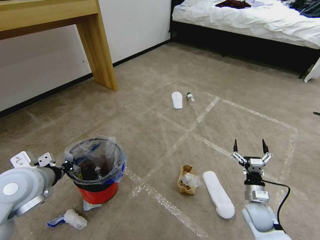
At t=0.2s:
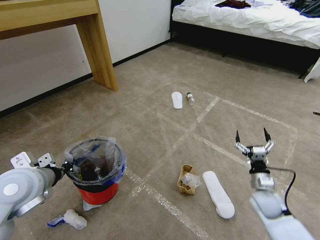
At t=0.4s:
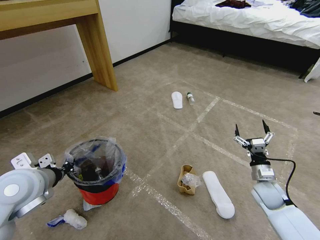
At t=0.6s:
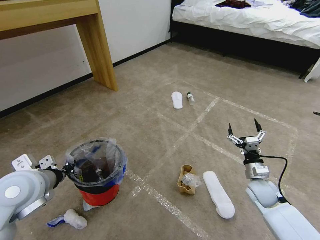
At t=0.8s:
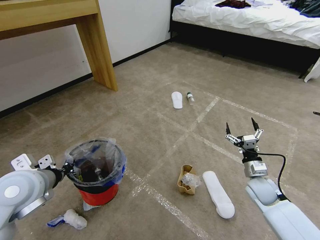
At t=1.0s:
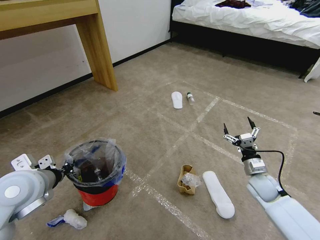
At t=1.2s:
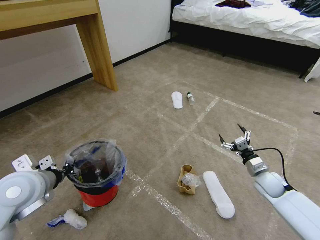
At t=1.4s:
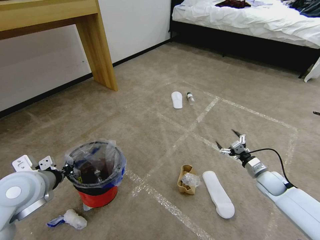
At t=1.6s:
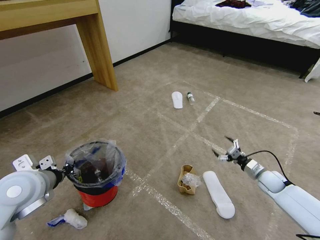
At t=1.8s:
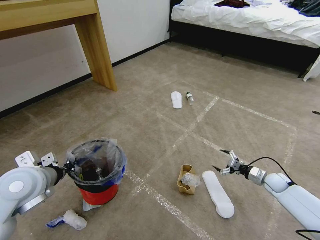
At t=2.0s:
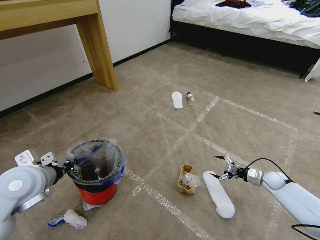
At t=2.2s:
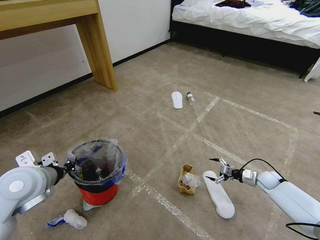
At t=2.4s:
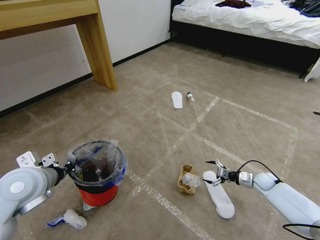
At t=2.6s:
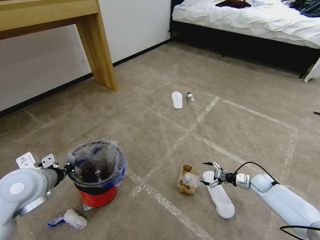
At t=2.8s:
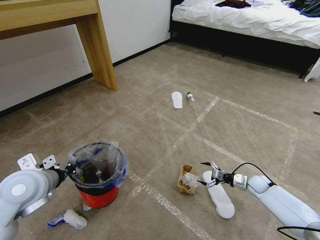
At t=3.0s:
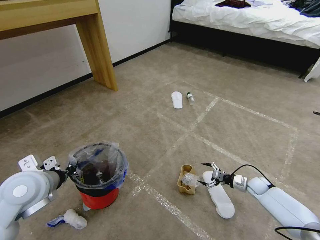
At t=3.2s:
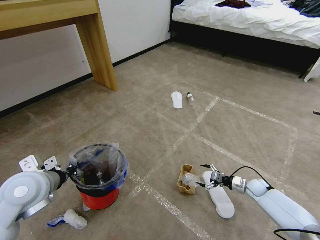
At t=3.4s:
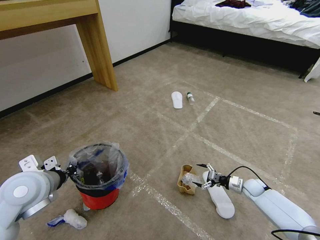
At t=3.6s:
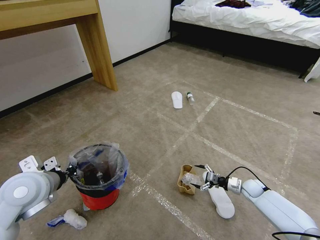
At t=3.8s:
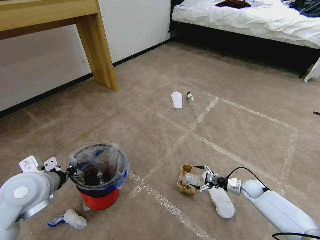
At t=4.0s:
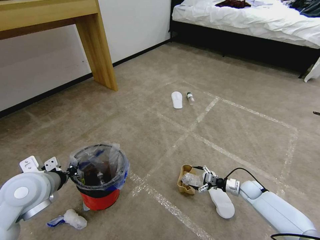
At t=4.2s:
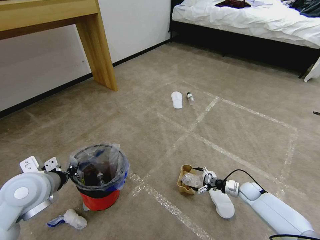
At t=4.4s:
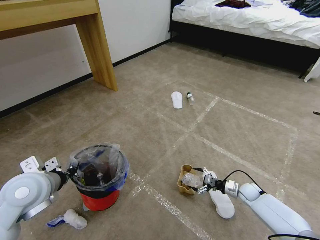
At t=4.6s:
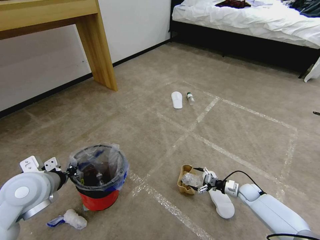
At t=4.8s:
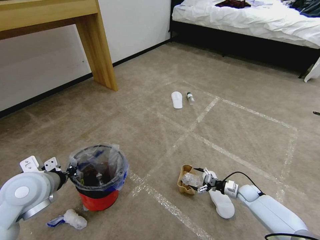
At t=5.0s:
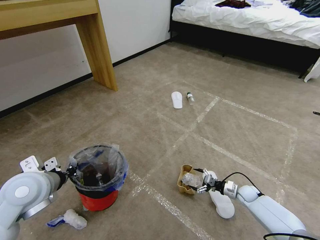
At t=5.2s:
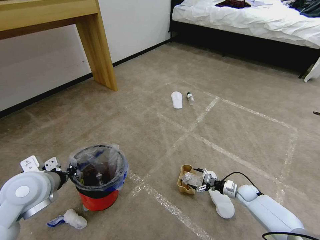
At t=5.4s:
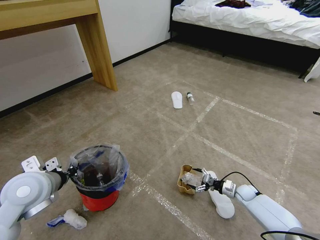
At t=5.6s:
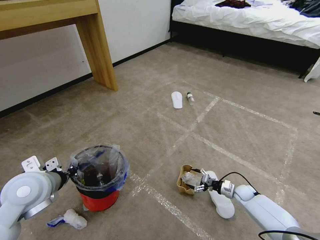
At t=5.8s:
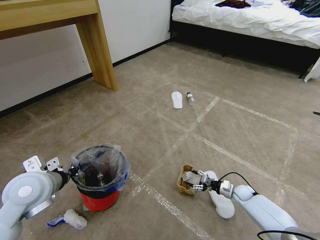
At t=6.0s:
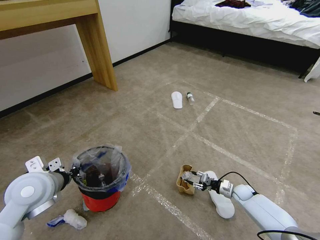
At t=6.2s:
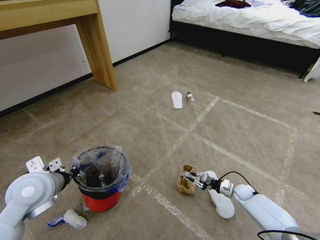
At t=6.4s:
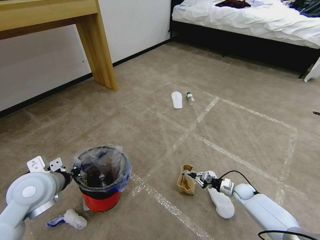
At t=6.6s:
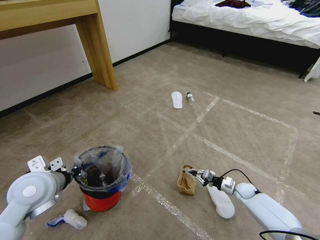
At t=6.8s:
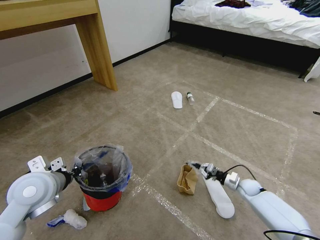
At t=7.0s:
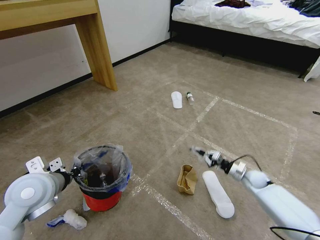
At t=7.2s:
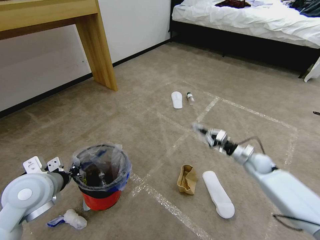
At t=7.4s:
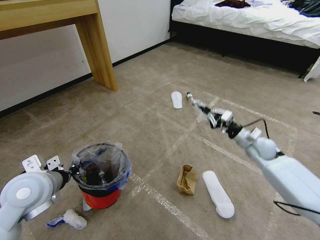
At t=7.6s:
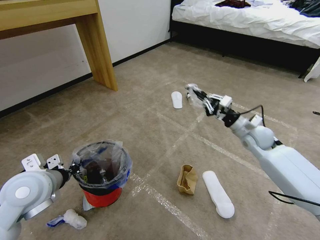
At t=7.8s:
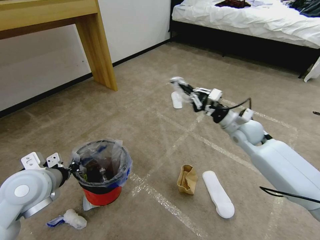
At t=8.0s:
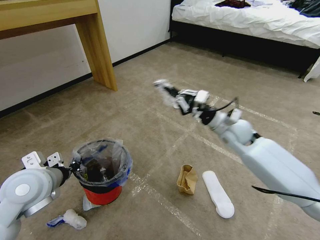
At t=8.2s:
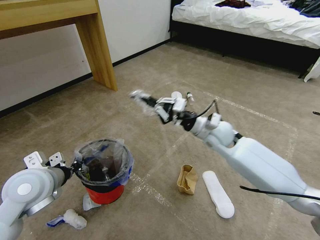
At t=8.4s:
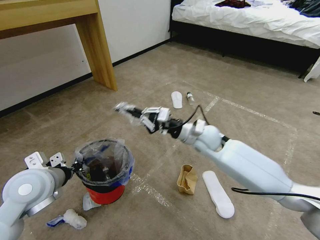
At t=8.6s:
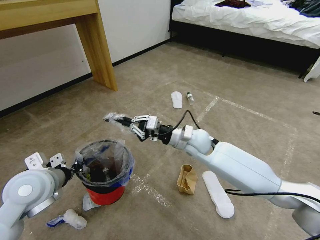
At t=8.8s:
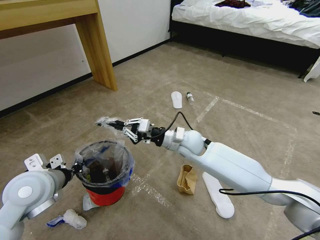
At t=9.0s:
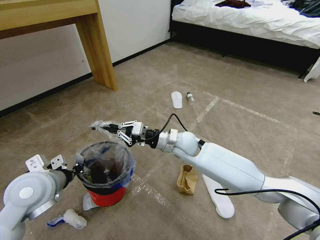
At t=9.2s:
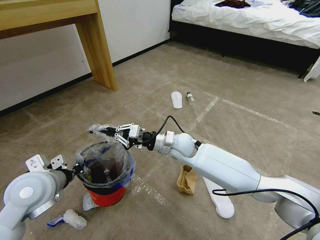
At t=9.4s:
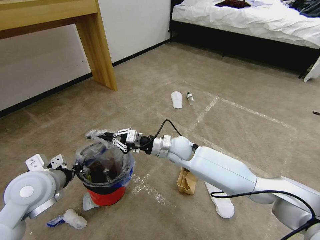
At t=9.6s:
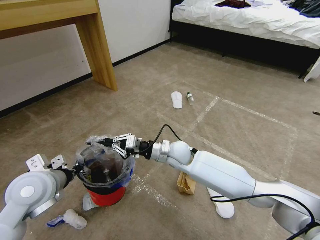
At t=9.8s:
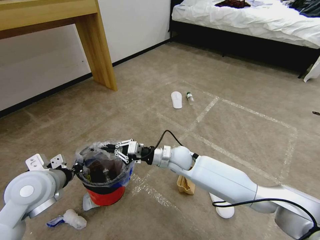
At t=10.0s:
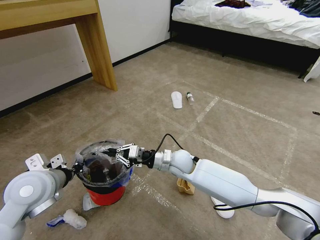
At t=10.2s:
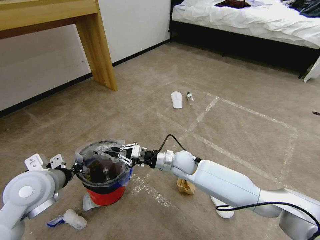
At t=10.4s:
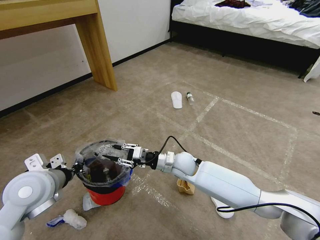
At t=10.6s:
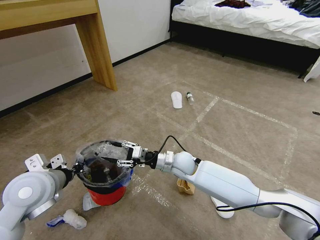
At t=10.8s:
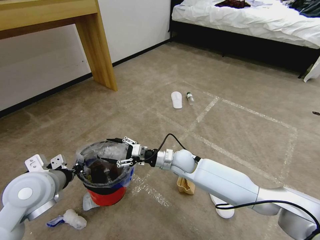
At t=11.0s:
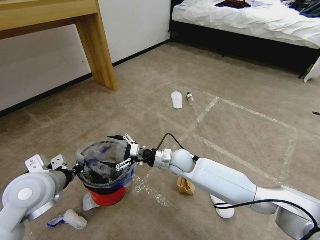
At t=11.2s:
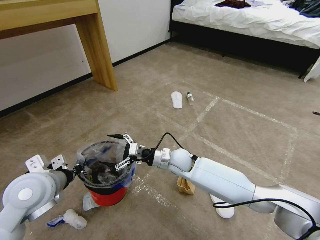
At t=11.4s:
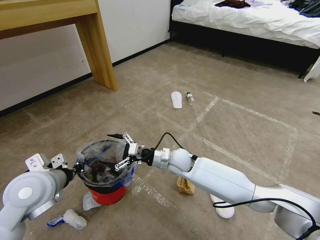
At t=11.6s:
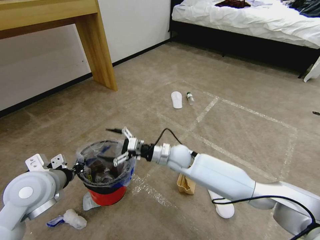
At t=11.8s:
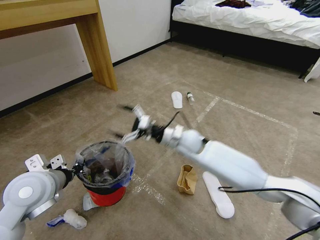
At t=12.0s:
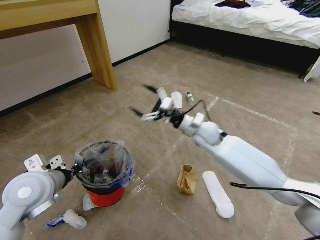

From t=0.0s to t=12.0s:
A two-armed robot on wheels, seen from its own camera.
Task of the whole recording: Pick up the trash bin and place the garbage on the floor into it.
From t=0.0s to t=1.6s: The right gripper travels forward and to the right by about 15 cm.
From t=1.6s to t=3.0s: The right gripper goes about 10 cm downward.
From t=3.0s to t=4.4s: The right gripper shifts by approximately 5 cm.
From t=4.4s to t=6.0s: The right gripper closes its fingers.
From t=6.0s to t=7.6s: The right gripper is displaced upward by some 30 cm, and closes.
From t=7.6s to t=9.0s: The right gripper moves to the left, approximately 25 cm.
From t=9.0s to t=10.4s: The right gripper is displaced downward by approximately 10 cm.
From t=10.4s to t=12.0s: The right gripper goes roughly 15 cm upward, to the right and forward, and opens its fingers.

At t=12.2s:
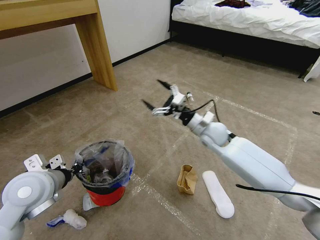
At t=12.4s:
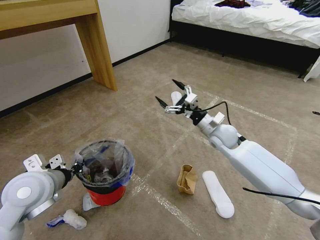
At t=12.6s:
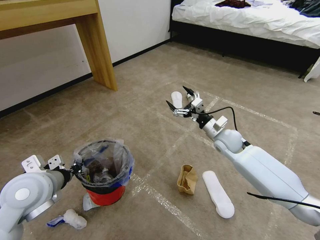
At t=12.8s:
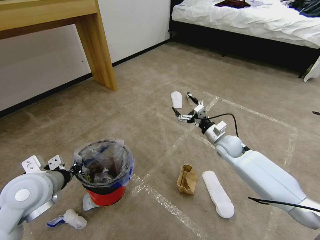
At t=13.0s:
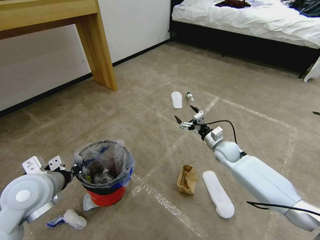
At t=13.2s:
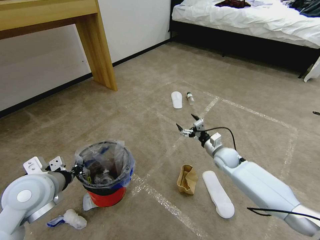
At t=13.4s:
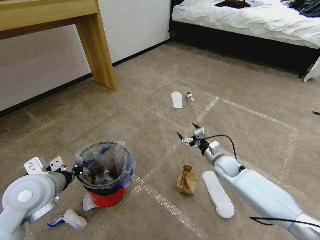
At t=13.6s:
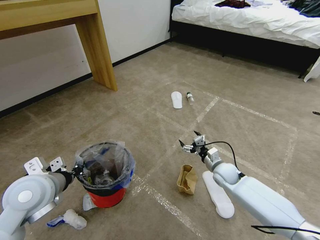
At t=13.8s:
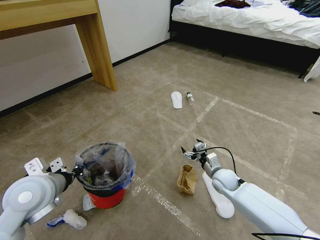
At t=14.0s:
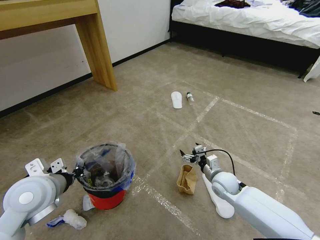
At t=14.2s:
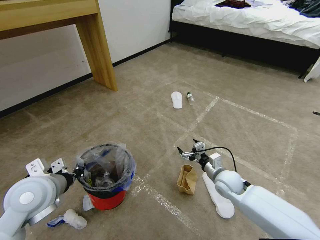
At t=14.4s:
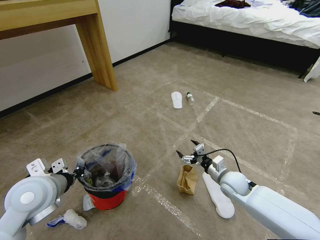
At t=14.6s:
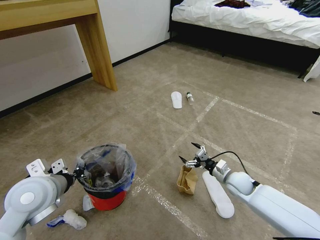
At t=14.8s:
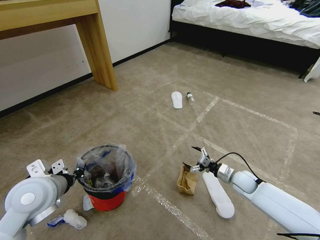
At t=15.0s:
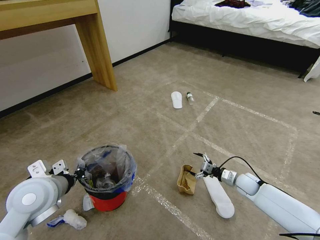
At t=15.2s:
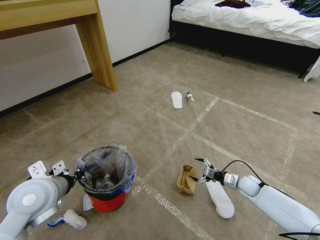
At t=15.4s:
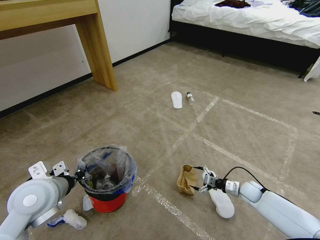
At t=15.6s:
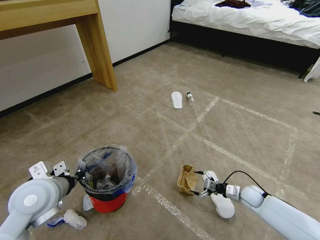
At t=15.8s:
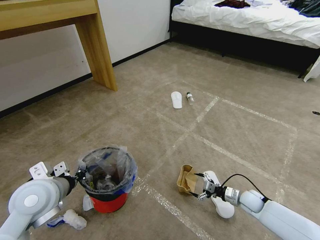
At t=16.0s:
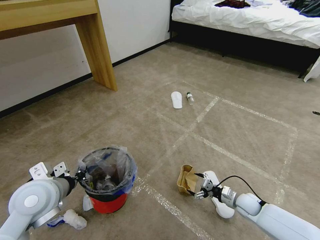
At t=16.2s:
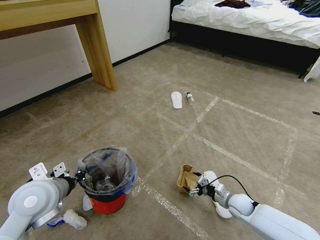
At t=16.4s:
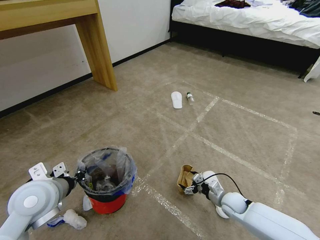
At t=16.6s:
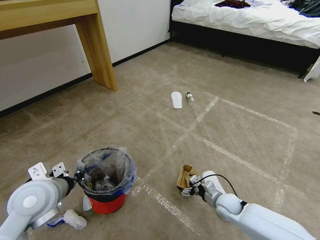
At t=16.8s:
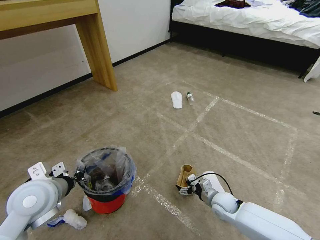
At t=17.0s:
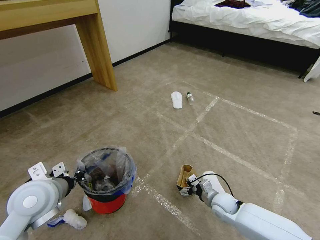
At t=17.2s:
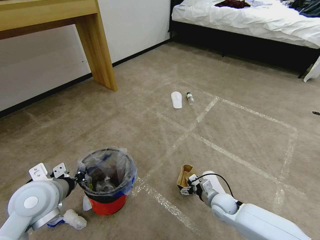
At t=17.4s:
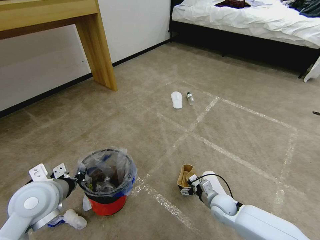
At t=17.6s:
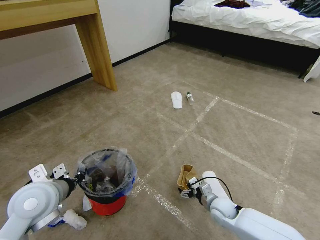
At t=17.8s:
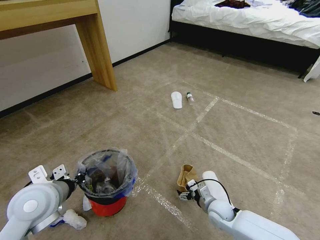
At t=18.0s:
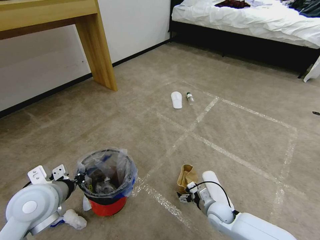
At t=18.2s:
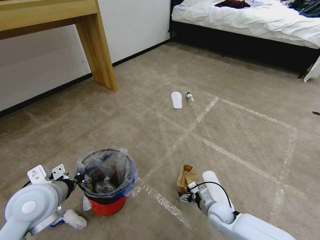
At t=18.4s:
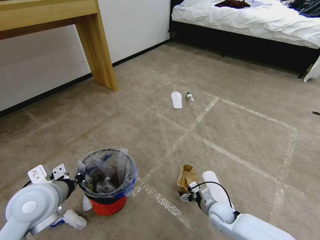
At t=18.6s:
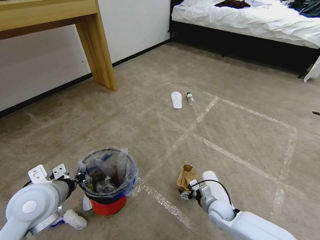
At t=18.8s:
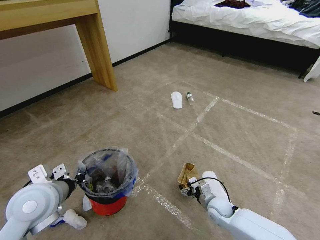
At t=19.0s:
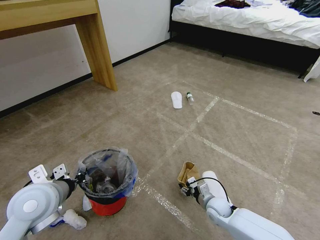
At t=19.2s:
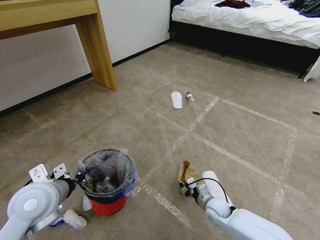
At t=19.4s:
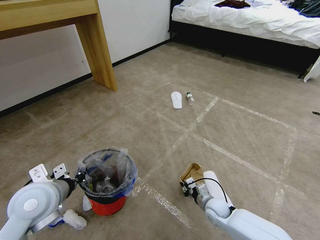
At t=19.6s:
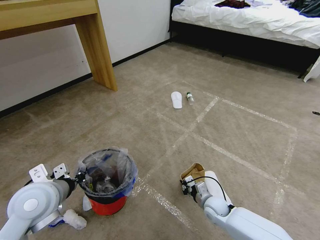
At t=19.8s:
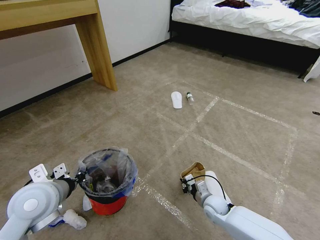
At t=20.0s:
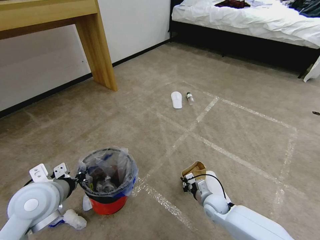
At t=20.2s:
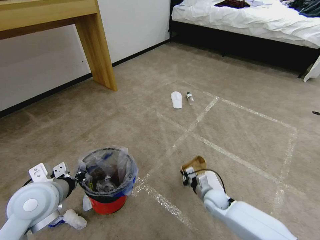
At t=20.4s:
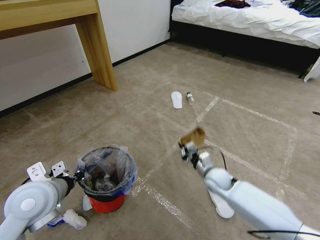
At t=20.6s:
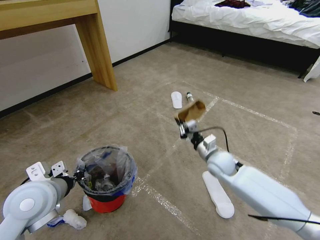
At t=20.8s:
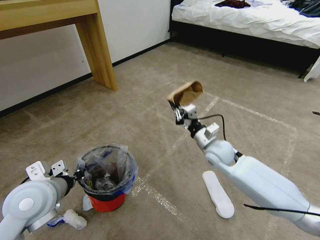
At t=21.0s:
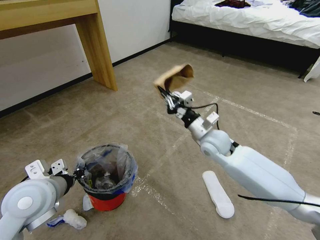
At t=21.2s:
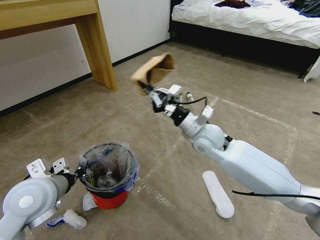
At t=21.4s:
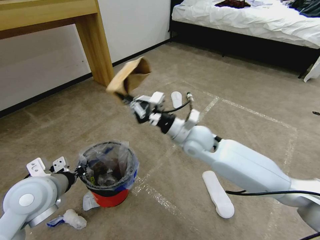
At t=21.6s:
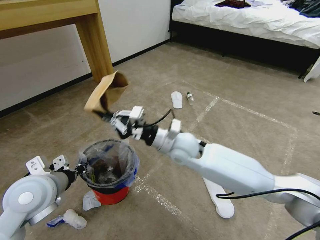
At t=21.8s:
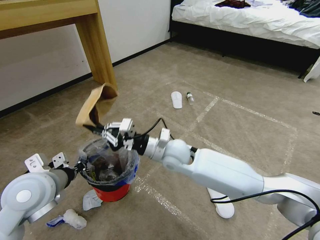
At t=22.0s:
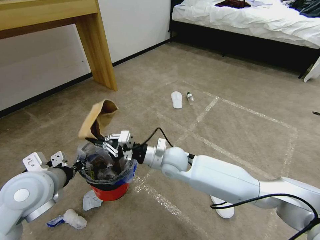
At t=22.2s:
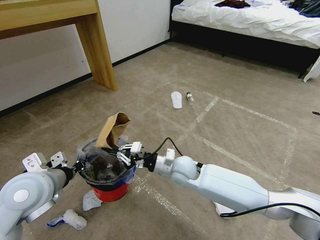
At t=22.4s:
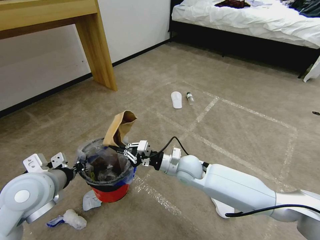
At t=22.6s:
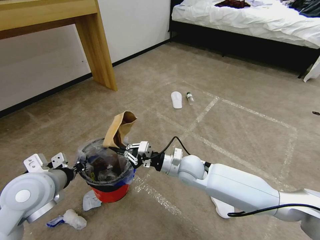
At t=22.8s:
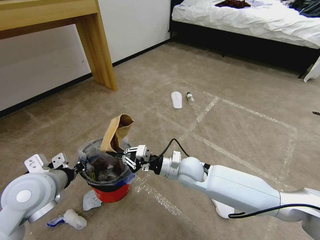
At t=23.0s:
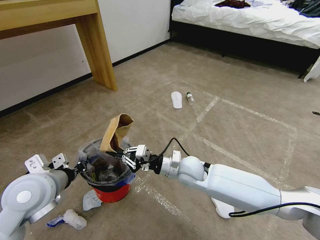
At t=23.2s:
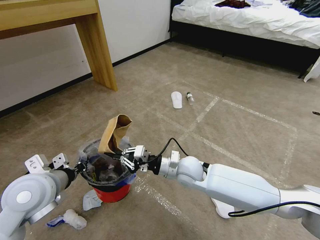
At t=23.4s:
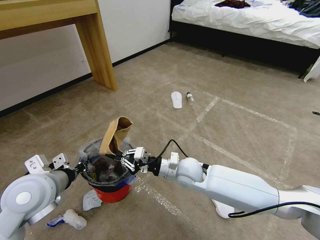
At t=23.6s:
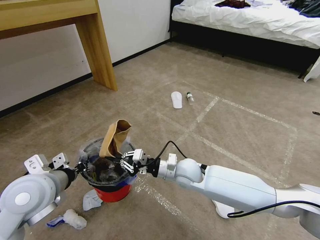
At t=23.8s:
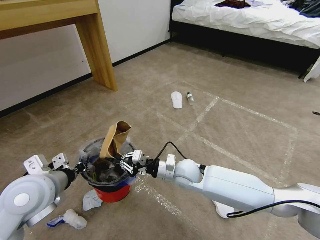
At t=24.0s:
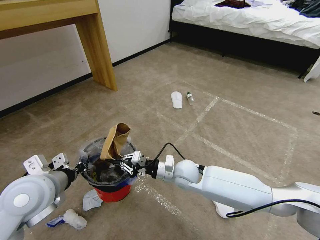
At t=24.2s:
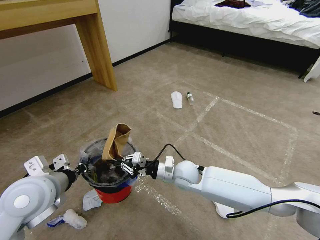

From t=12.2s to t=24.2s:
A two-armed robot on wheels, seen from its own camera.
Task of the whole recording: Pick up the trash bin and place the garbage on the floor into it.
From t=12.2s to t=13.8s: The right gripper moves downward and backward, some 20 cm.
From t=13.8s to t=15.2s: The right gripper goes some 15 cm to the right and downward.
From t=15.2s to t=16.6s: The right gripper is displaced to the left and backward by approximately 15 cm.
From t=16.6s to t=18.2s: The right gripper moves about 5 cm.
From t=18.2s to t=19.8s: The right gripper closes up.
From t=19.8s to t=21.2s: The right gripper is displaced upward by about 30 cm.
From t=21.2s to t=22.6s: The right gripper shifts roughly 10 cm downward.
From t=22.6s to t=24.2s: The grippers move only a little.
